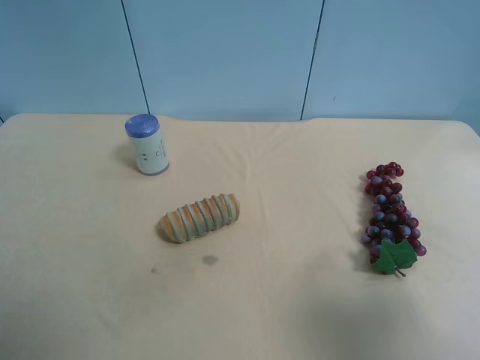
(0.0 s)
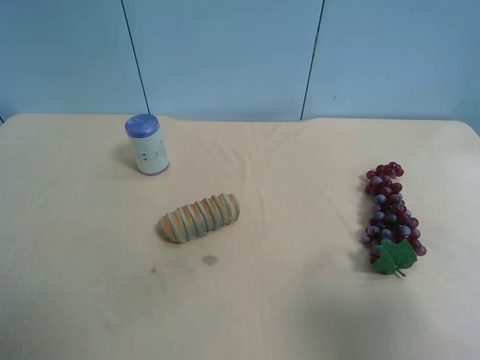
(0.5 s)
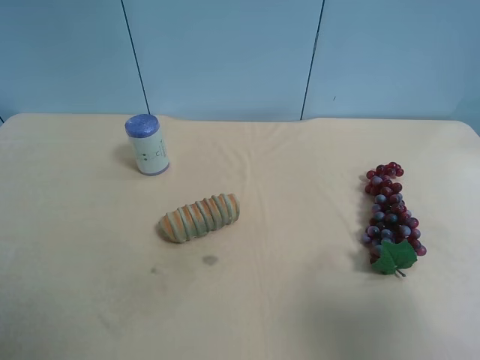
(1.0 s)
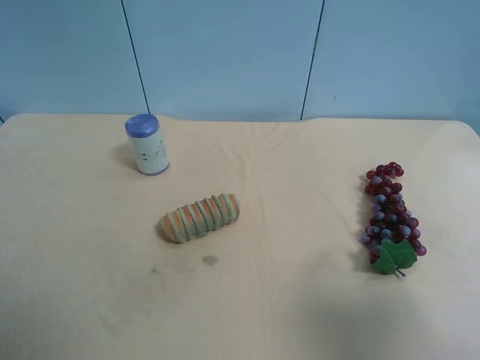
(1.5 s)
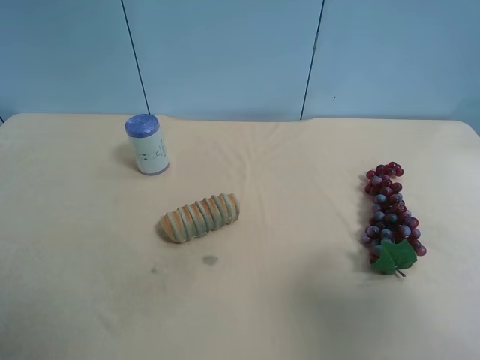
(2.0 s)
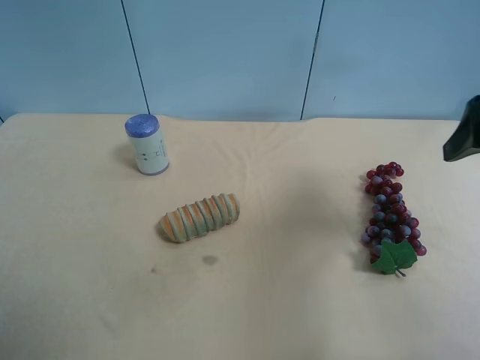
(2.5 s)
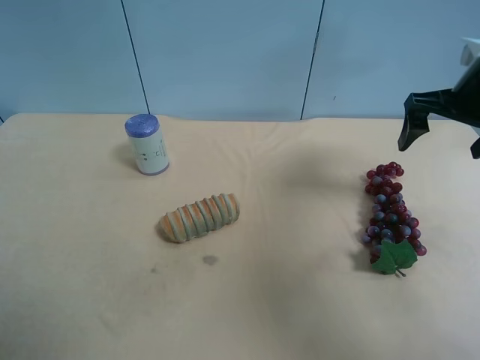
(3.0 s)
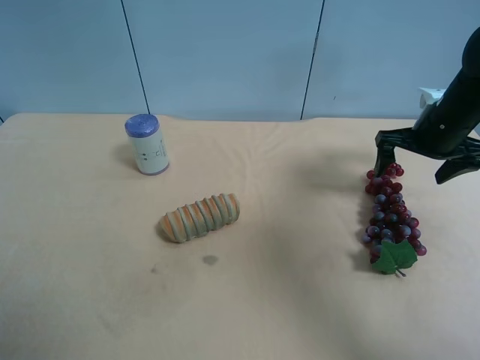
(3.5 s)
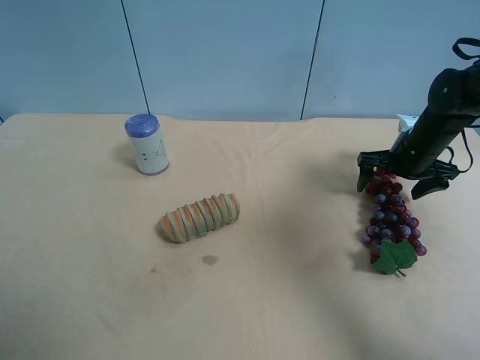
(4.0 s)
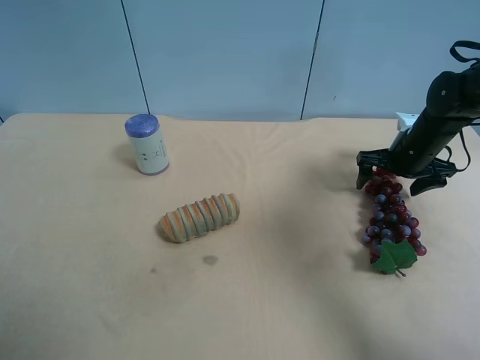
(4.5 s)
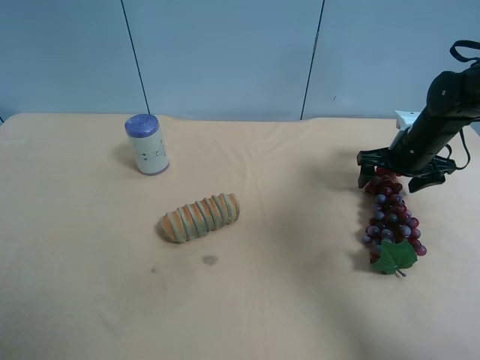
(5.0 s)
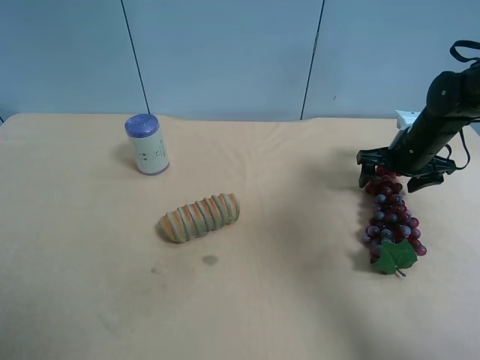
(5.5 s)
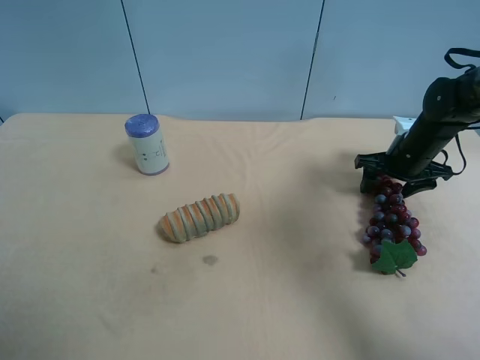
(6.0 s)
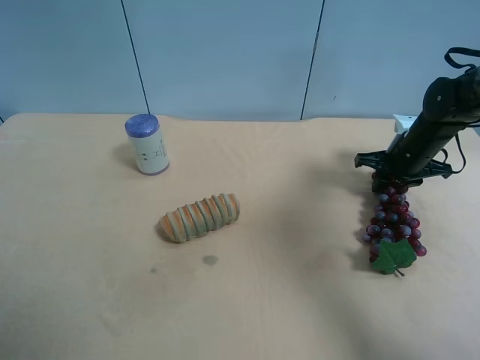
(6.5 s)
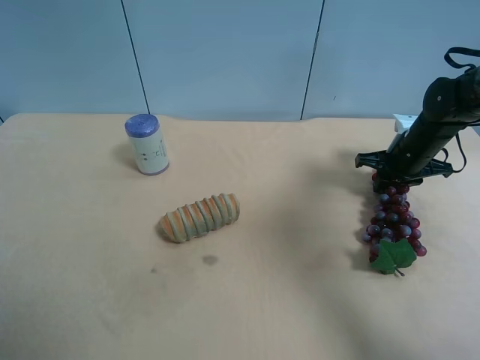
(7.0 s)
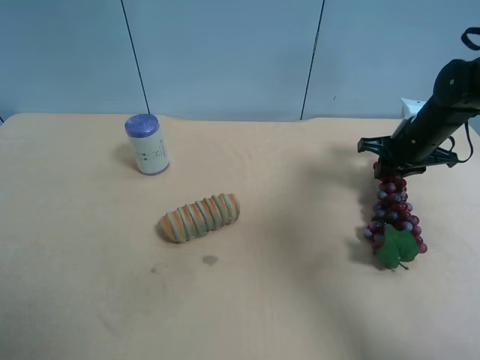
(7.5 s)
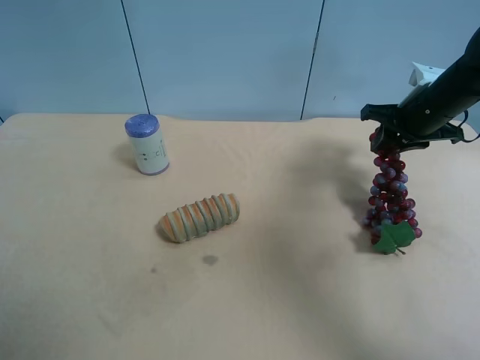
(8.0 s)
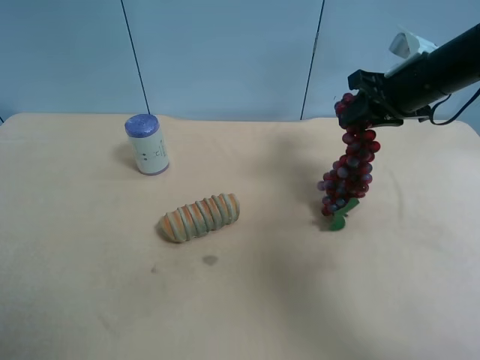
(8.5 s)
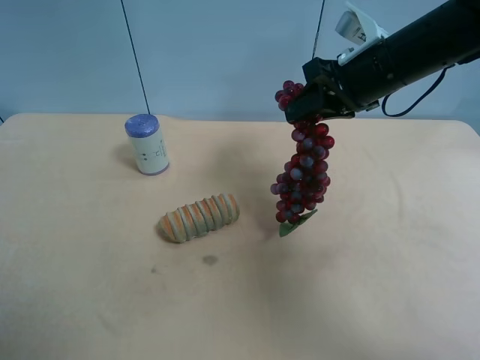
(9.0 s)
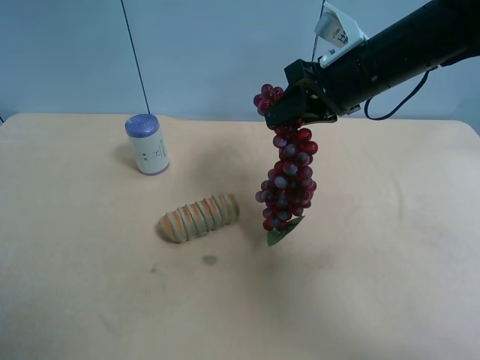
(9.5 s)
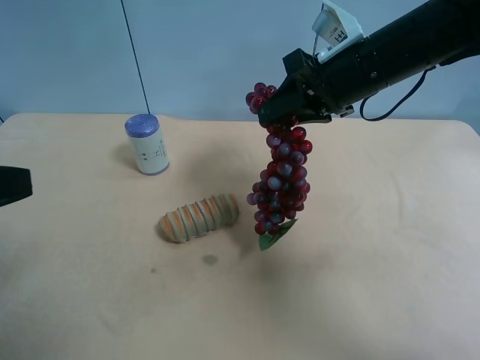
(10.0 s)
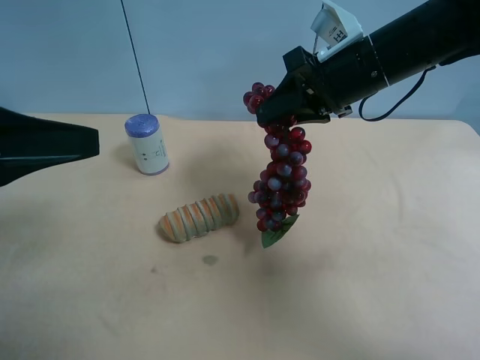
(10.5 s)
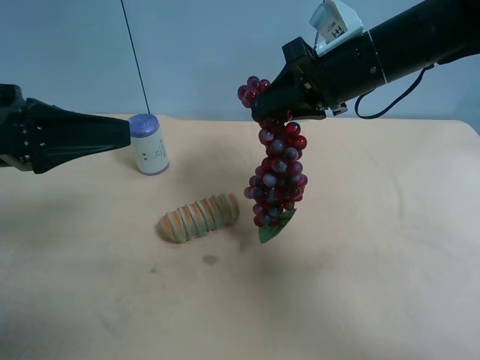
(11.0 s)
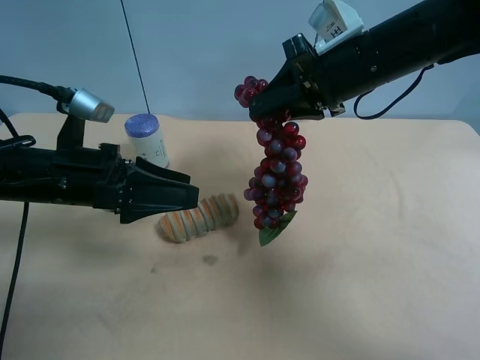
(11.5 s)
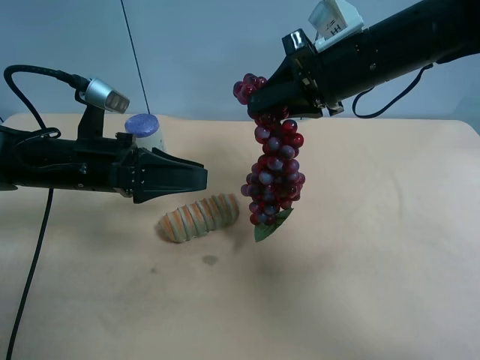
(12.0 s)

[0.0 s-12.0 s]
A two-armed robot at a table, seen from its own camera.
Task of the whole recording: use the right gripper to pick up the item and transfer it from the right gripper to the left gripper.
2.0 to 4.0 s: The right gripper heads forward and downward, covering about 40 cm.
4.0 to 6.0 s: The right gripper closes.
6.0 to 8.0 s: The right gripper heads upward, covering some 10 cm, and closes.
8.0 to 10.0 s: The left gripper travels forward by approximately 10 cm, while the right gripper travels to the left and upward by approximately 15 cm.
10.0 to 12.0 s: The left gripper goes some 25 cm forward, downward and to the right.

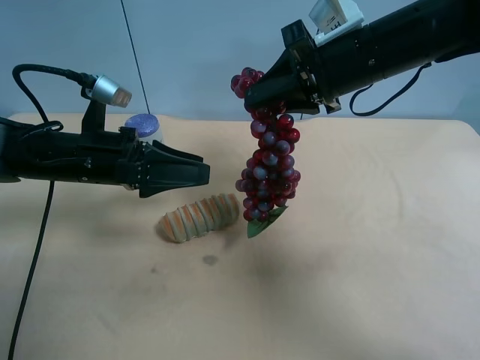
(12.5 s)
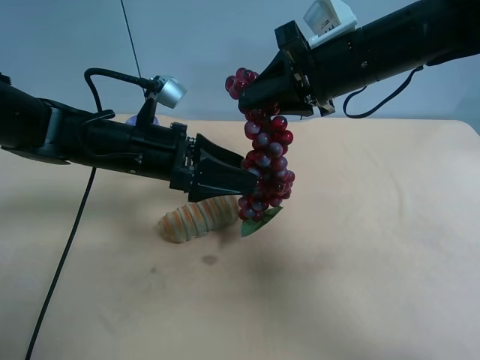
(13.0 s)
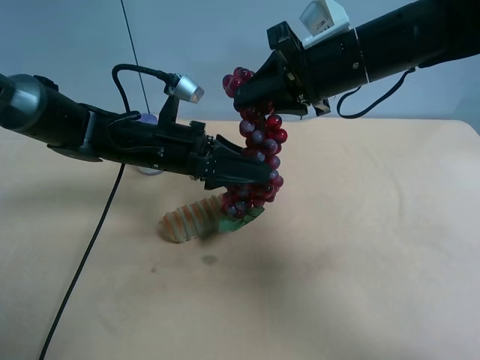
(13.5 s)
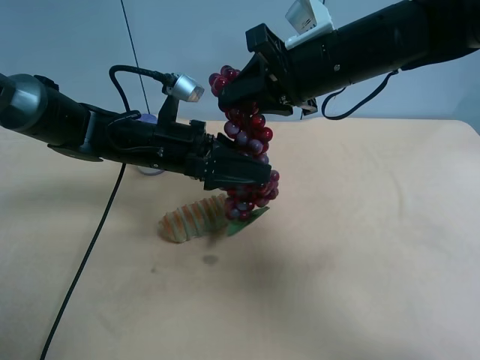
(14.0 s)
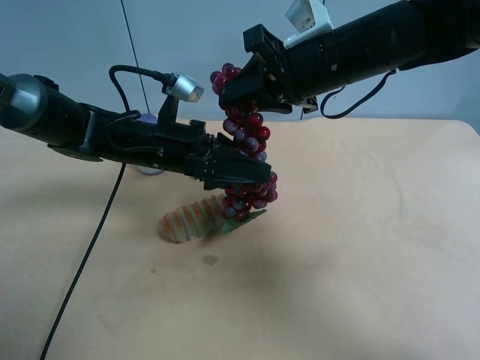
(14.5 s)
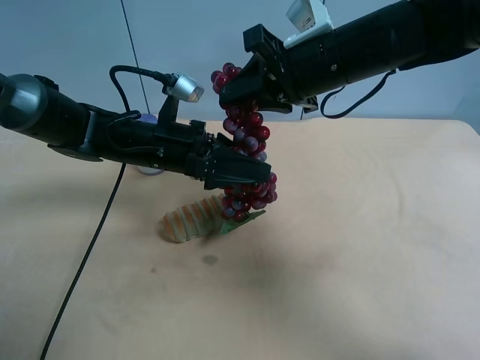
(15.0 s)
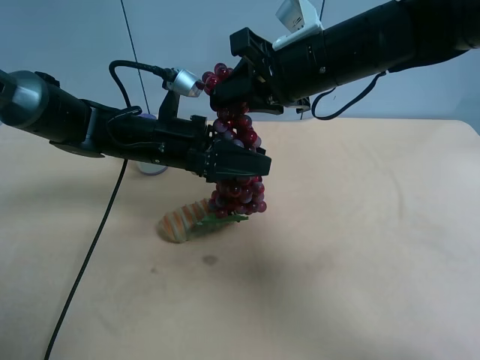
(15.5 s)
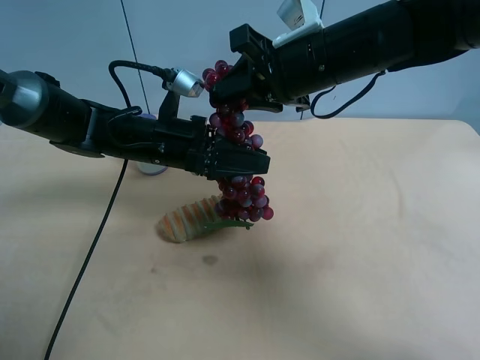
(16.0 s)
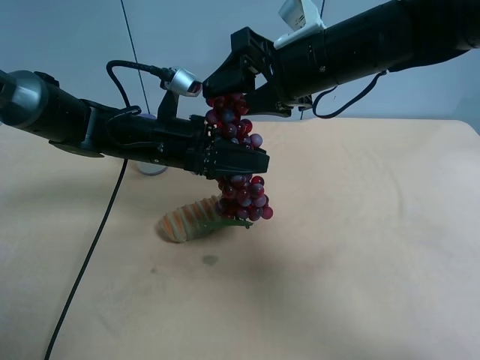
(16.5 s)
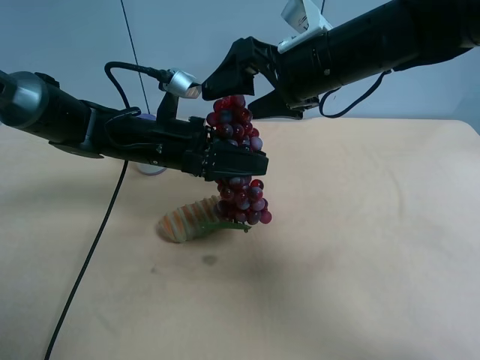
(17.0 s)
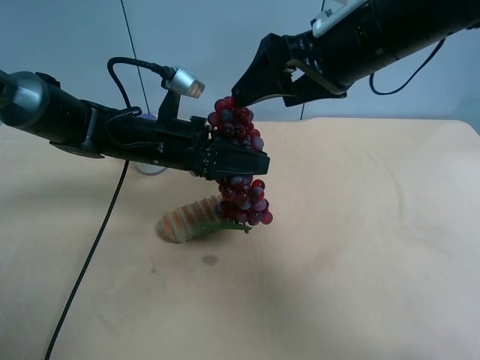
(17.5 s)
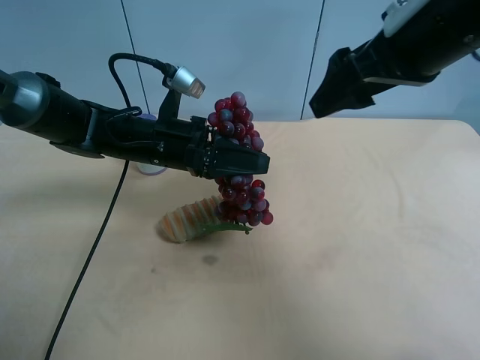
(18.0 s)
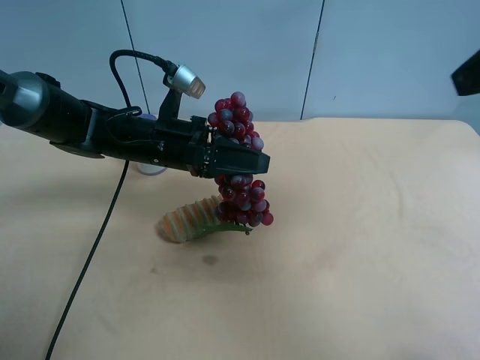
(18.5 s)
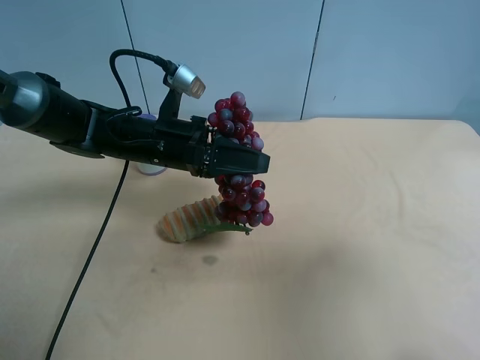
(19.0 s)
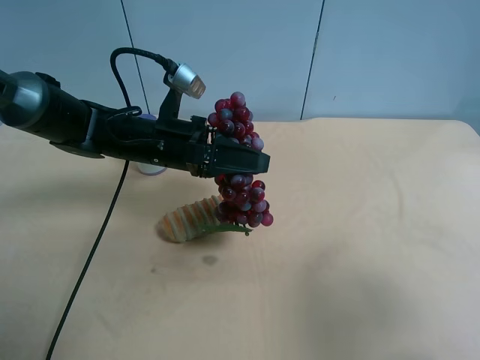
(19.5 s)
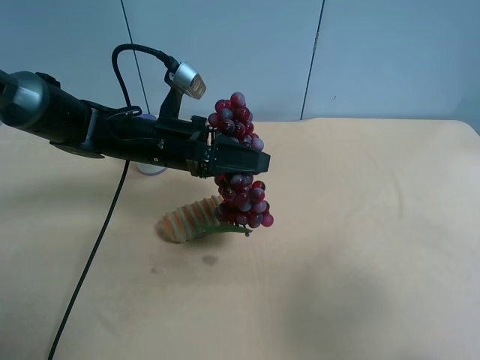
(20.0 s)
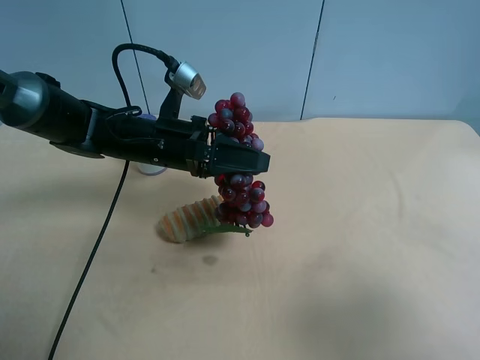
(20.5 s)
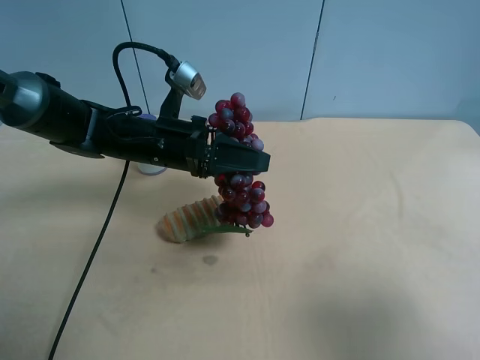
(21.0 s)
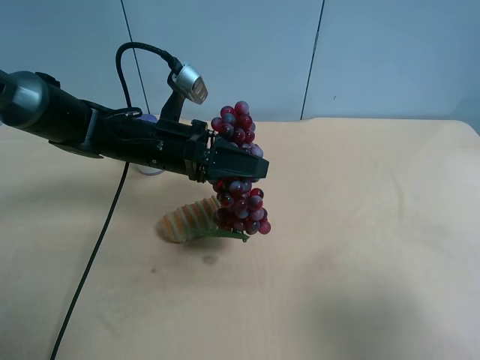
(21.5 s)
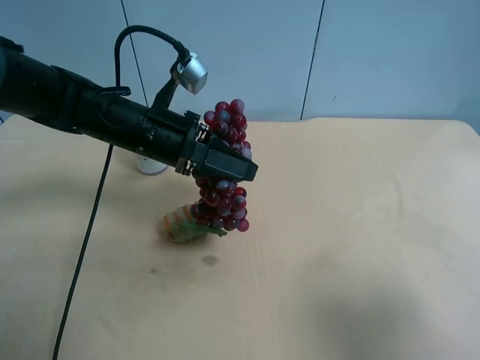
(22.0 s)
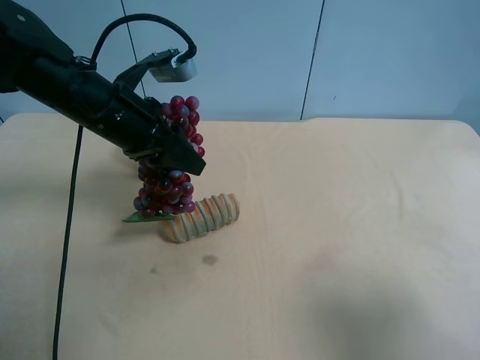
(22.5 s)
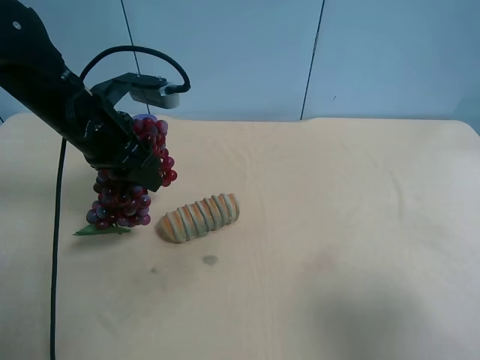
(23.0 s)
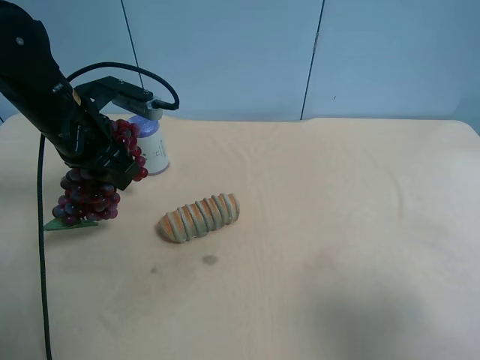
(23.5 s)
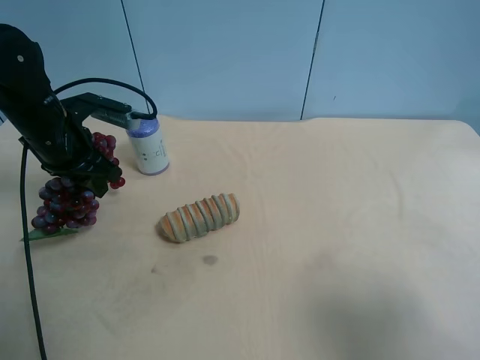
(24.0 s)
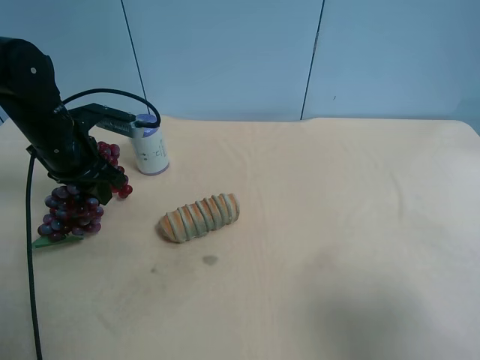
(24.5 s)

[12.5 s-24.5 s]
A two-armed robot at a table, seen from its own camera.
Task of the whole recording: use the right gripper to pick up the item and transfer it from the right gripper to the left gripper.
12.5 to 14.5 s: The left gripper heads to the right, covering approximately 5 cm.
14.5 to 16.5 s: The left gripper closes; the right gripper opens.
16.5 to 18.5 s: The right gripper heads backward, to the right and upward, covering approximately 25 cm.
18.5 to 20.5 s: The right gripper shifts some 20 cm backward and downward.
20.5 to 22.5 s: The left gripper goes about 10 cm upward and to the left.
22.5 to 24.5 s: The left gripper is displaced to the left and downward by approximately 10 cm.

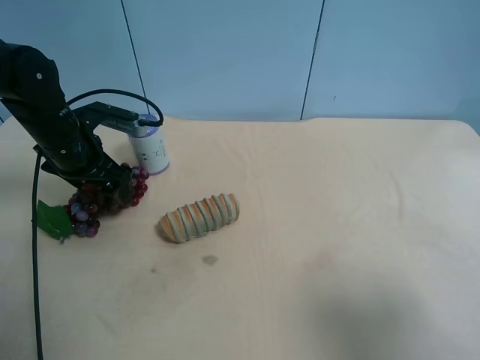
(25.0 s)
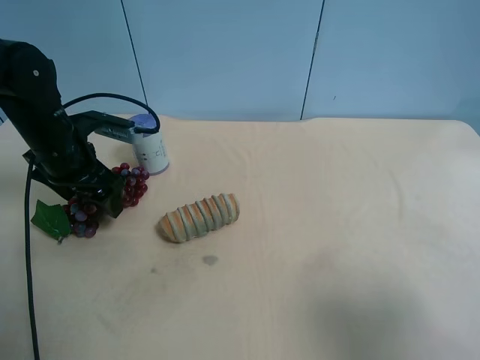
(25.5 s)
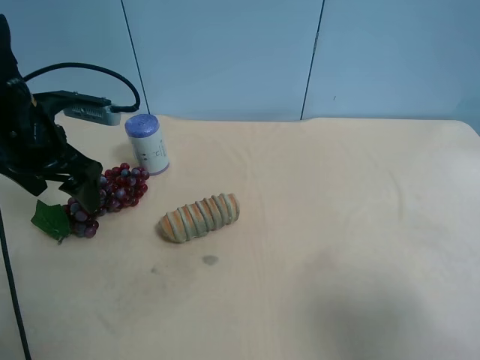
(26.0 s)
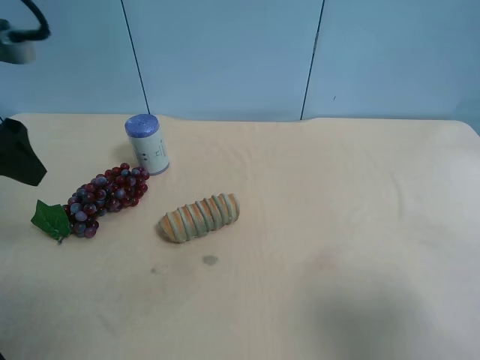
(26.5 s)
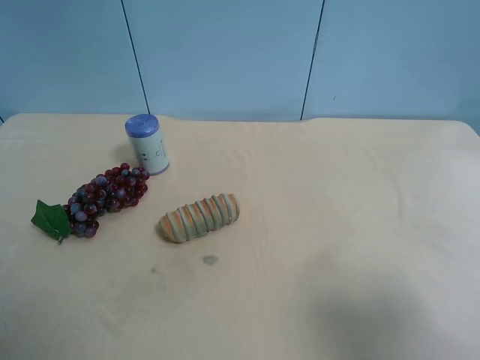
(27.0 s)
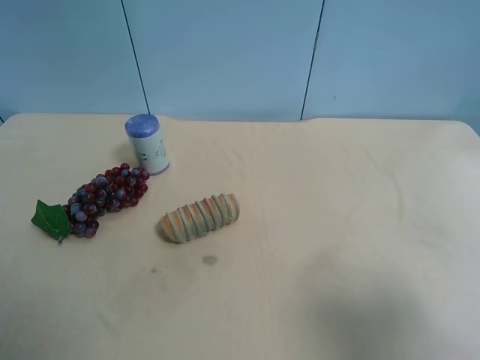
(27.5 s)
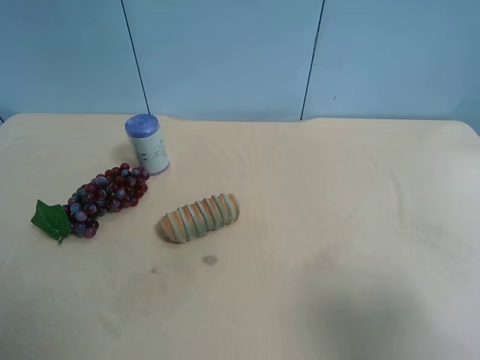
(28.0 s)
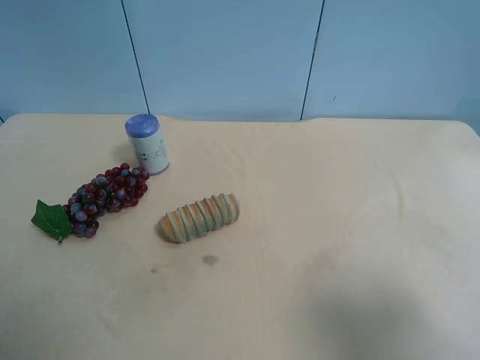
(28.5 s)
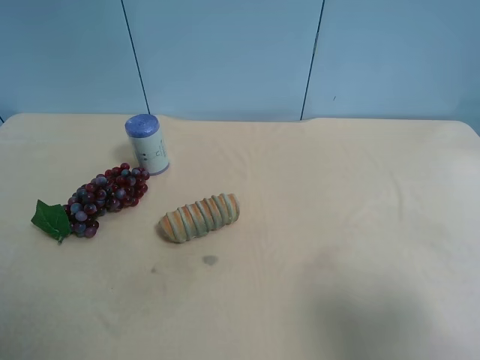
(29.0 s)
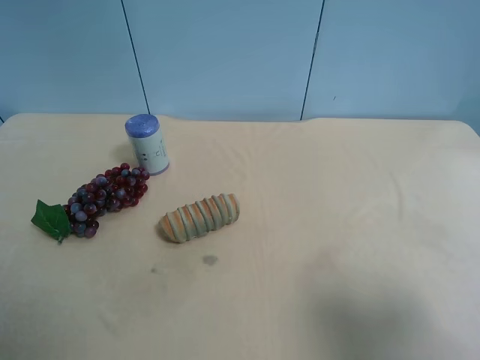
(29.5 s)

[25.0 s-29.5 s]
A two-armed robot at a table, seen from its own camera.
Task of the whole recording: use the right gripper to pick up the item and transfer it from the right gripper to the left gripper.
25.0 to 27.0 s: The left gripper moves backward and upward, approximately 30 cm.
